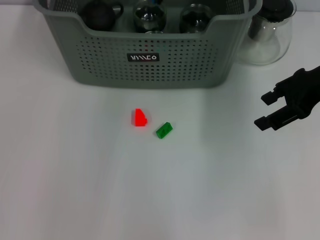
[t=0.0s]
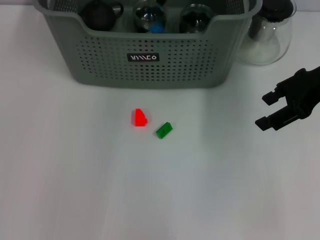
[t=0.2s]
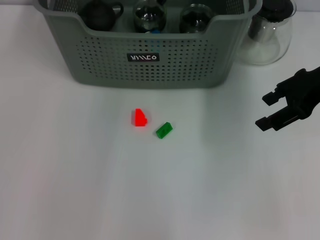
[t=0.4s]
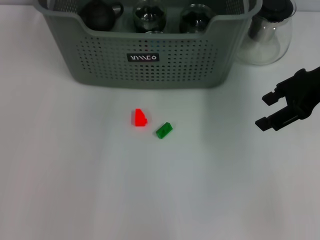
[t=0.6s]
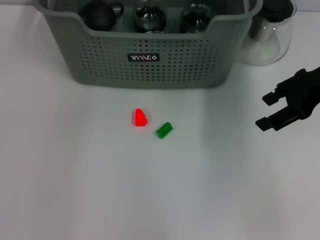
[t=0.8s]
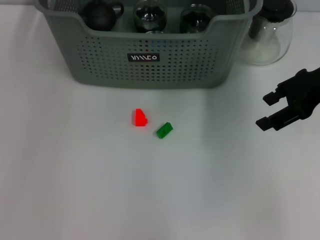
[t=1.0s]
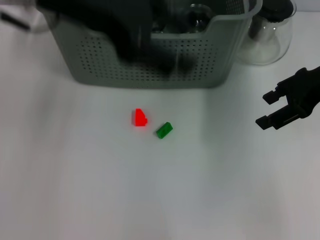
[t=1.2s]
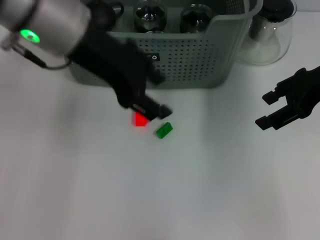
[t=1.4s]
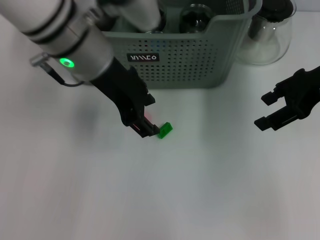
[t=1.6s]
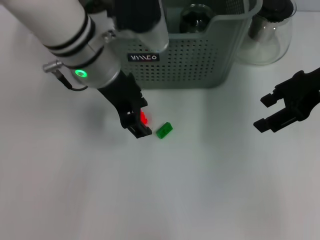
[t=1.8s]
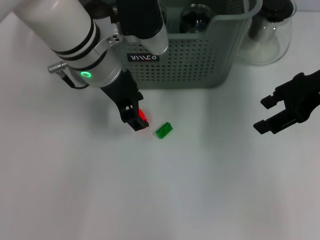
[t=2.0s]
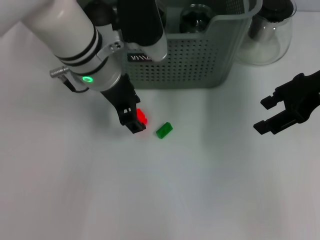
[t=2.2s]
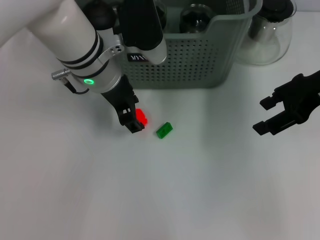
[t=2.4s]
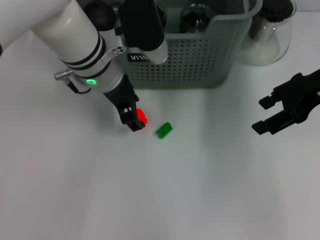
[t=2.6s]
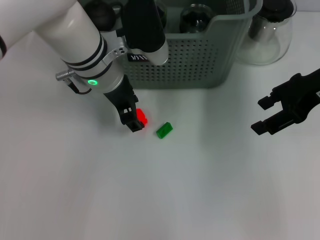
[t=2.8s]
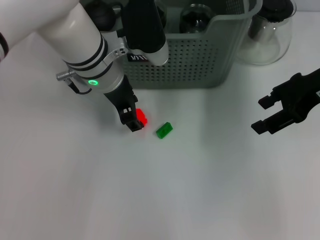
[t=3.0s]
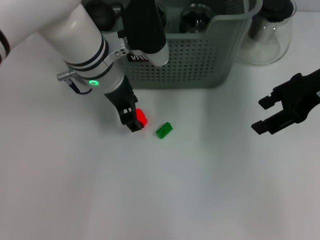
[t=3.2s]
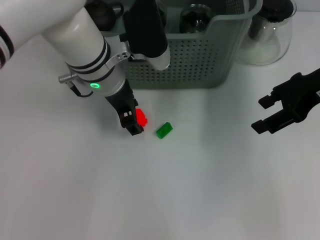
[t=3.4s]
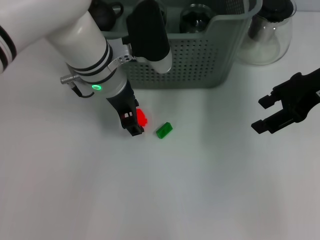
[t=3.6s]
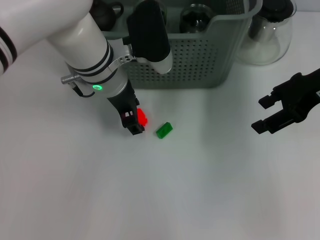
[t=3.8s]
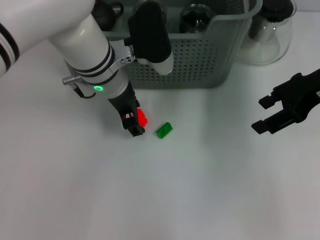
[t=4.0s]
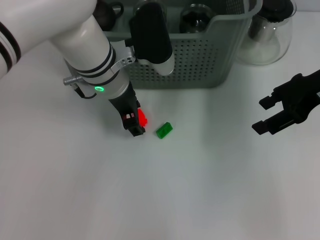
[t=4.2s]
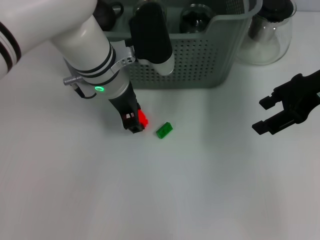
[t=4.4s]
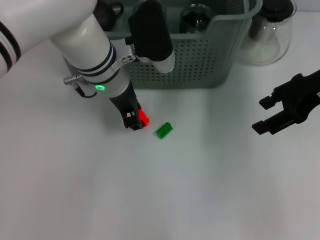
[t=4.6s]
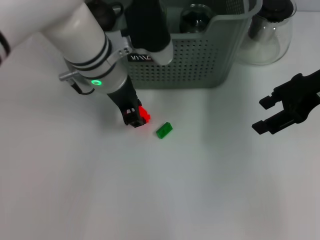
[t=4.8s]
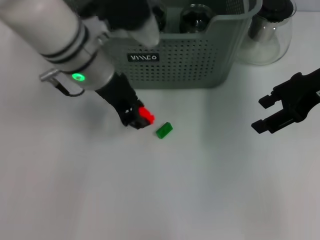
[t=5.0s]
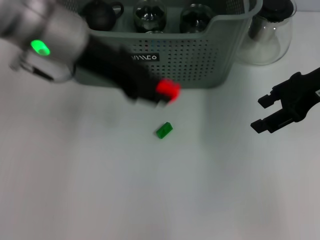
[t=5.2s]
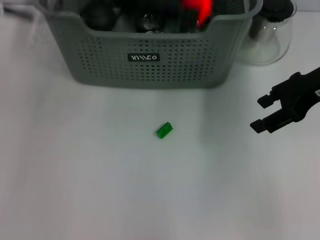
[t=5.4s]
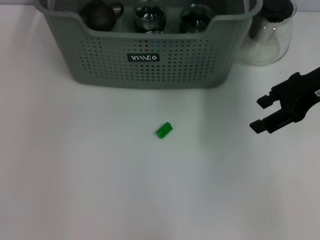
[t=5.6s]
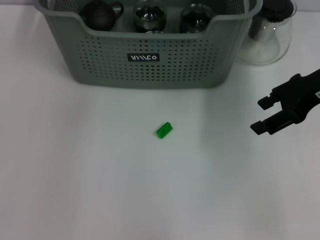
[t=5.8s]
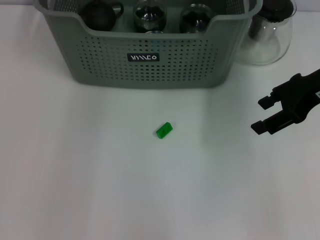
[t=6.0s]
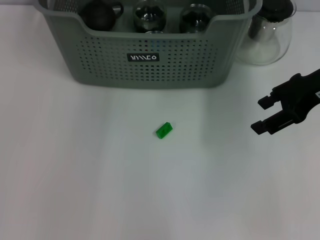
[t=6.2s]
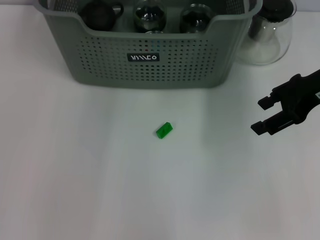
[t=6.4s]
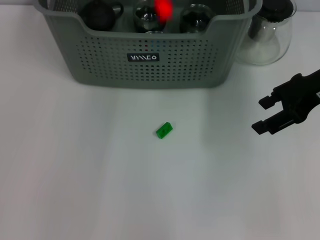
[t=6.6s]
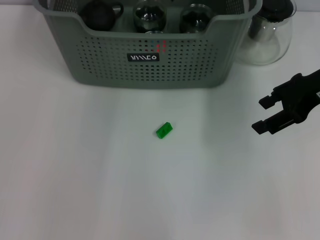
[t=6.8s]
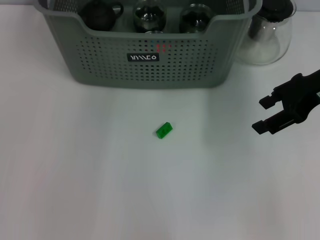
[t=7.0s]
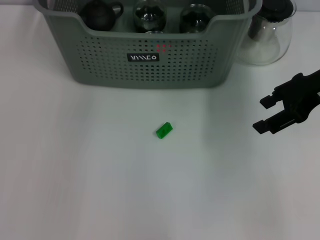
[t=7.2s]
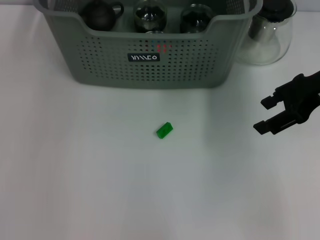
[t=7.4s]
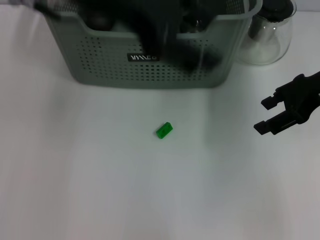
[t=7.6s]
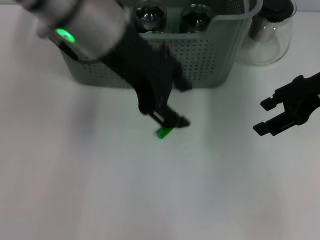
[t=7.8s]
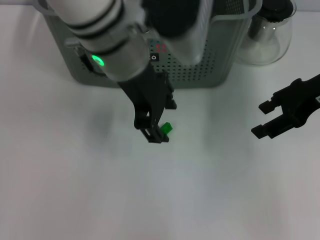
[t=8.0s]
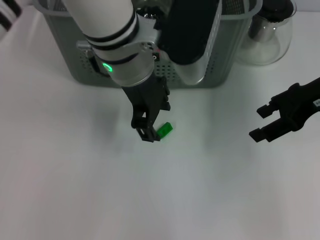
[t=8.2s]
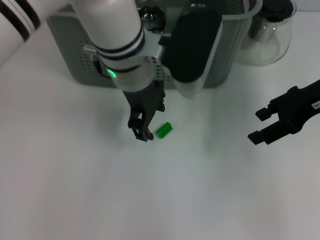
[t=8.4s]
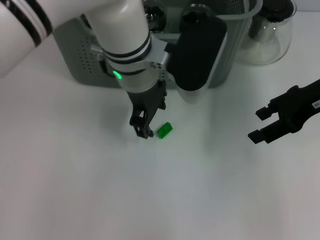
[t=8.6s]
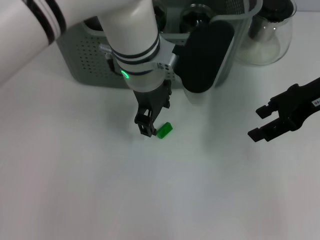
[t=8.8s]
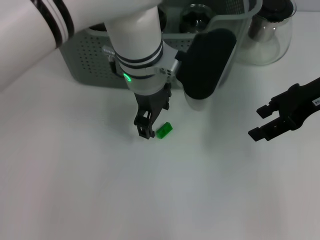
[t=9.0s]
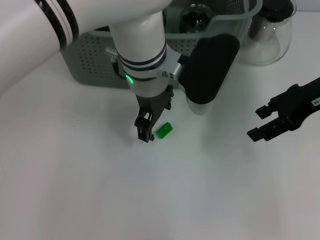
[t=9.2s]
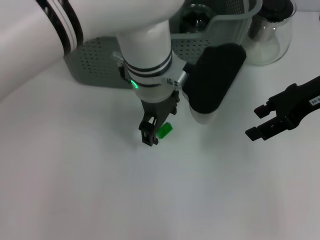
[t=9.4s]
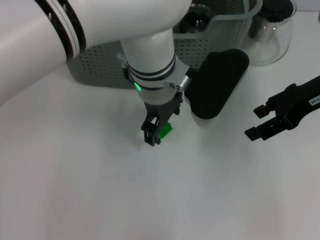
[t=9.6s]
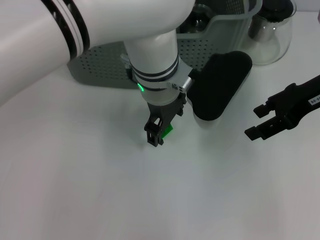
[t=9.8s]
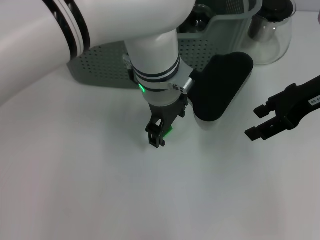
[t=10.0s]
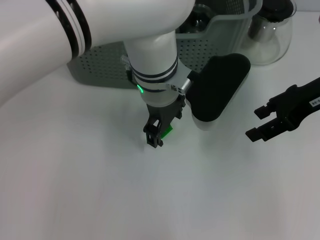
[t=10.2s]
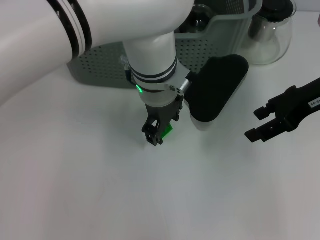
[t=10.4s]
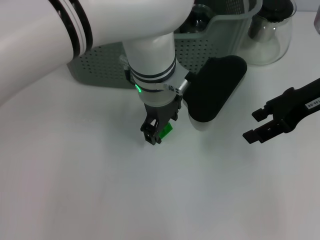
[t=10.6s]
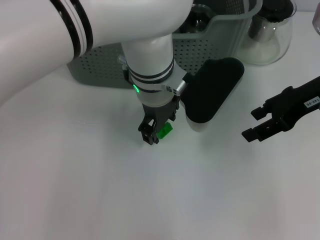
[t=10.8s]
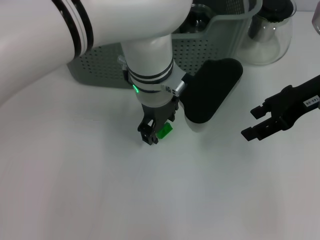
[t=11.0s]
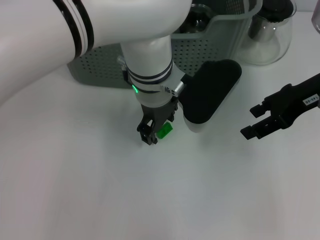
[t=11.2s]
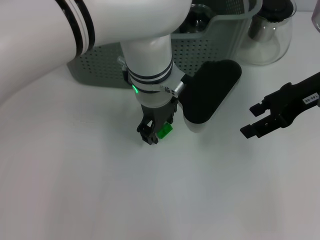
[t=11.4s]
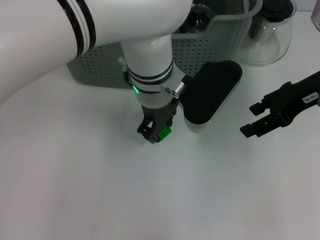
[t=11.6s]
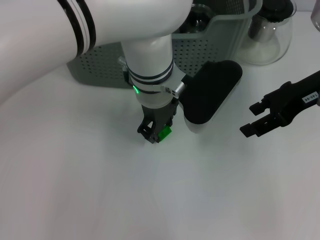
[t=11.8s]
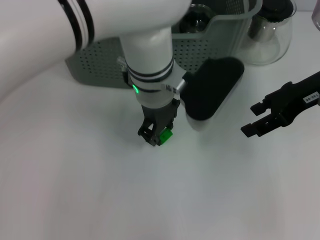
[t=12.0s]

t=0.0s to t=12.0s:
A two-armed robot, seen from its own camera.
Task of the whole recording: pick up the teacup on the table and place it into the storage bin, pick up the block on the table and place it into the storage bin.
Step, t=0.4s to t=4.4s: Grasp the orange block with left gripper.
Step, t=4.6s to t=6.6s: Place the orange block in the storage box with left gripper.
Step, t=7.0s to t=11.6s: Grasp the green block with left gripper.
t=0.0s to t=1.6s: The left gripper travels backward by approximately 10 cm, and opens up.
t=1.6s to t=3.0s: The left gripper heads downward, covering some 10 cm.
t=3.0s to t=4.4s: The two grippers keep their place.
t=4.4s to t=6.0s: The left gripper moves upward, roughly 20 cm.
t=6.0s to t=7.6s: The left gripper travels backward by about 10 cm.
t=7.6s to t=9.0s: The left gripper heads downward and to the right, covering roughly 20 cm.
t=9.0s to t=10.4s: The grippers make only small movements.
t=10.4s to t=12.0s: The left gripper closes its fingers.

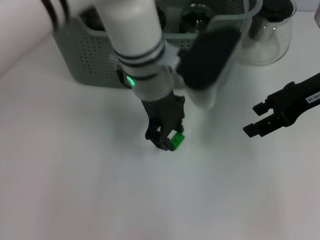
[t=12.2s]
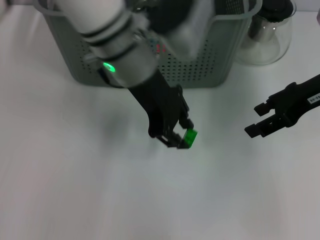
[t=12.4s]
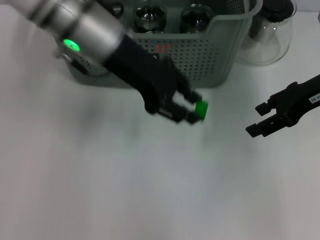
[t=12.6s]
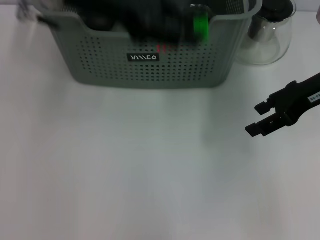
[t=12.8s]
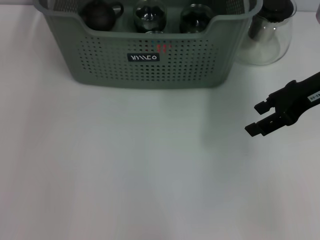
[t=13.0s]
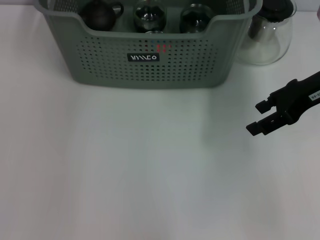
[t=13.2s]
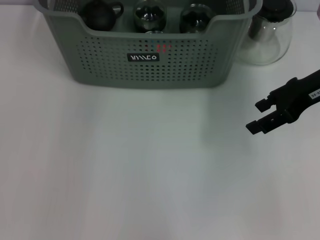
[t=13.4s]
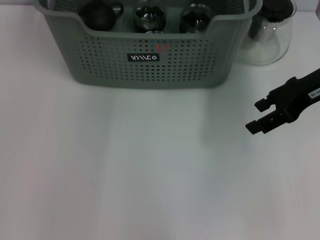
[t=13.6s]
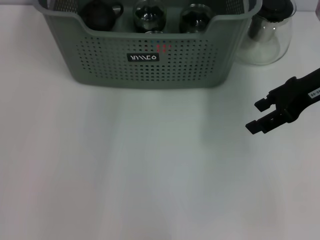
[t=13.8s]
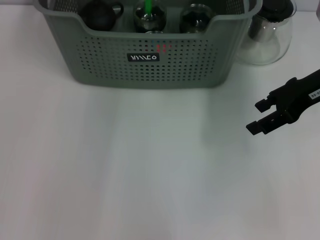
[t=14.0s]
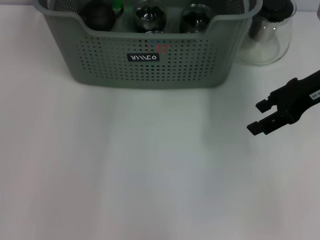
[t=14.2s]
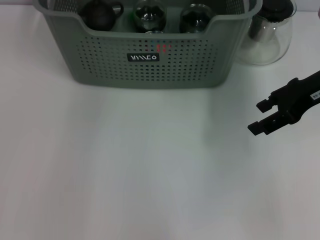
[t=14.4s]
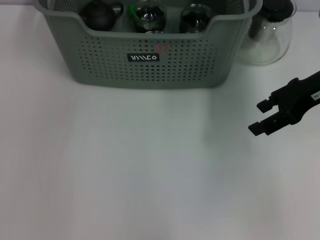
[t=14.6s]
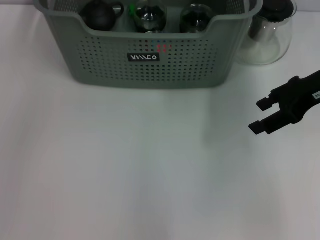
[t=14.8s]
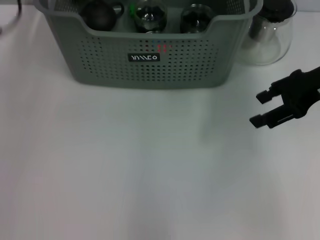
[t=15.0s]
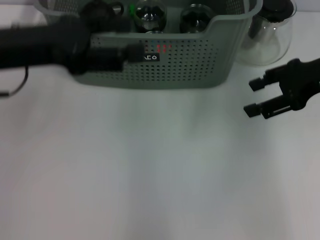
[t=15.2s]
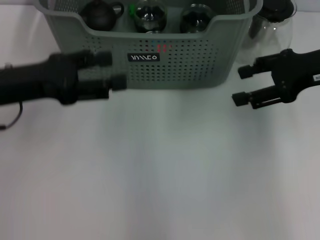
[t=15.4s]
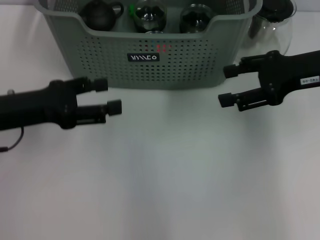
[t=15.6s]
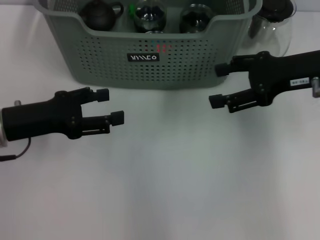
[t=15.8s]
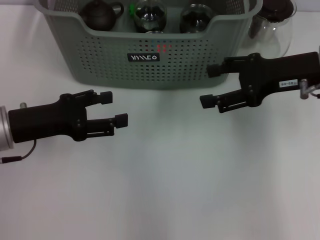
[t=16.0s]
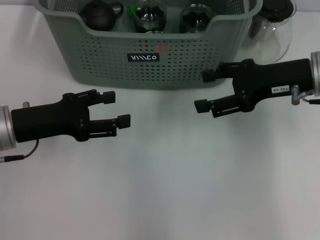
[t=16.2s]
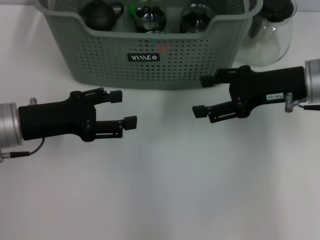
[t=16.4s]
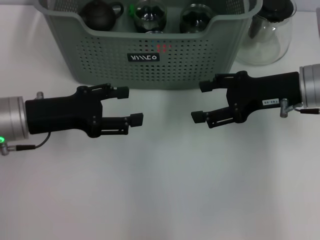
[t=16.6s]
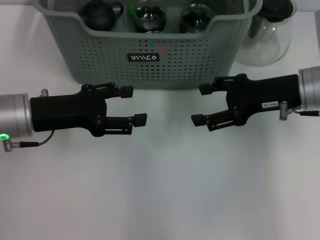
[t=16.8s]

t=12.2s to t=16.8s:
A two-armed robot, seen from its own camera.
Task of the whole recording: pick up the teacup on the table and place it into the storage bin, pick up the block on the table and place it into the storage bin.
Step, t=12.2s to t=14.0s: Place the green block in the storage box with left gripper.
t=12.2s to t=13.8s: The left gripper is displaced forward, upward and to the left by approximately 15 cm.
t=13.8s to t=15.2s: The left gripper travels backward and to the left by some 25 cm, and opens its fingers.
t=15.2s to t=16.8s: The two grippers go some 10 cm downward.
